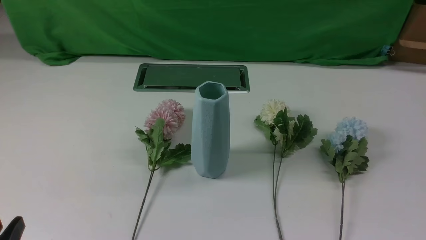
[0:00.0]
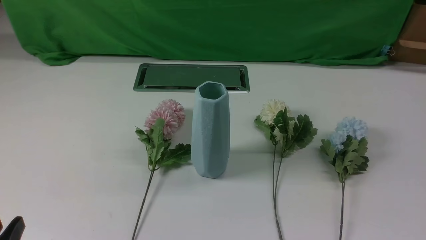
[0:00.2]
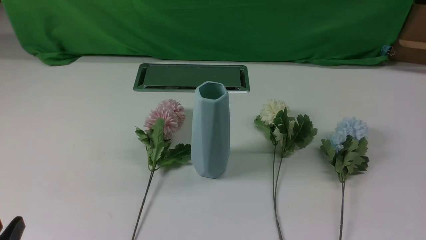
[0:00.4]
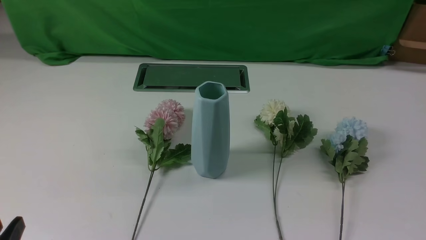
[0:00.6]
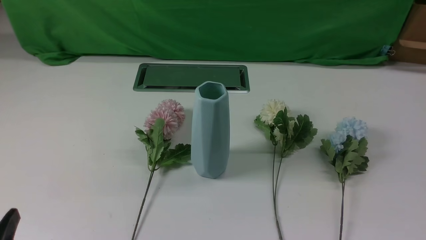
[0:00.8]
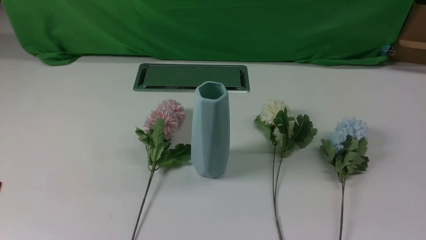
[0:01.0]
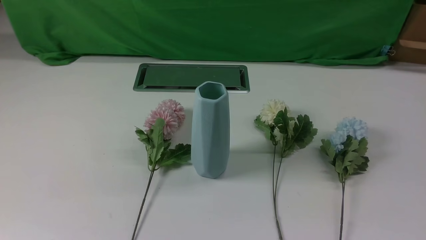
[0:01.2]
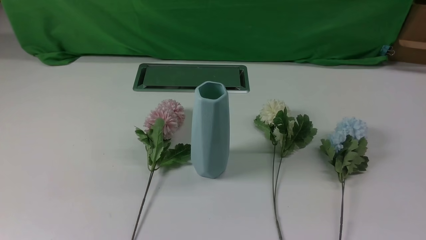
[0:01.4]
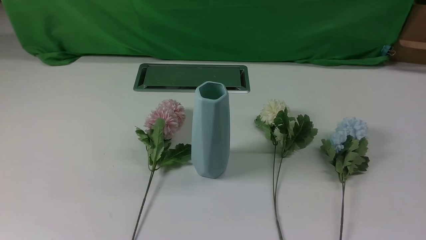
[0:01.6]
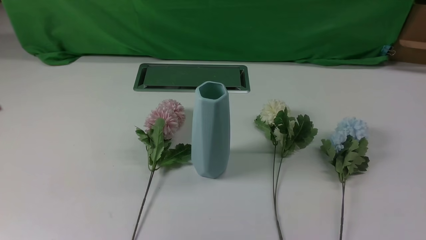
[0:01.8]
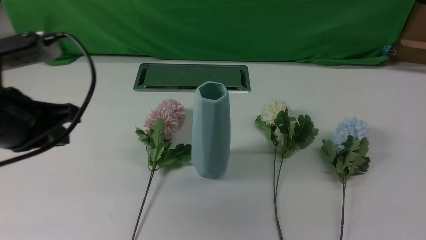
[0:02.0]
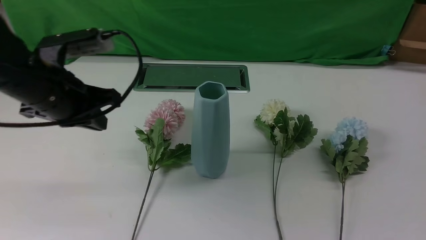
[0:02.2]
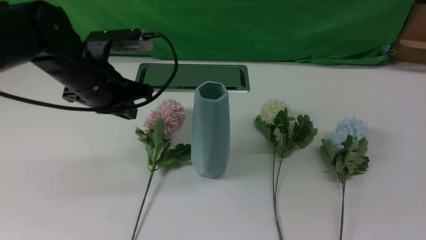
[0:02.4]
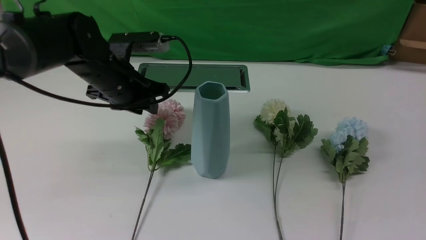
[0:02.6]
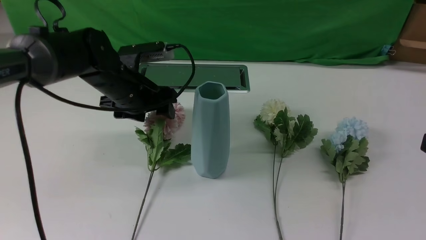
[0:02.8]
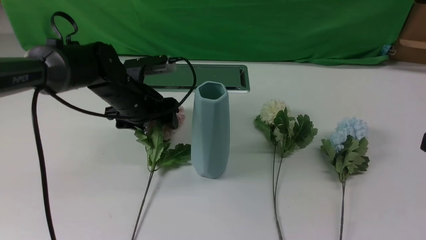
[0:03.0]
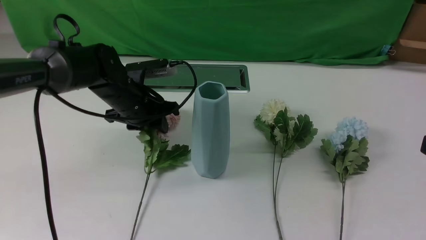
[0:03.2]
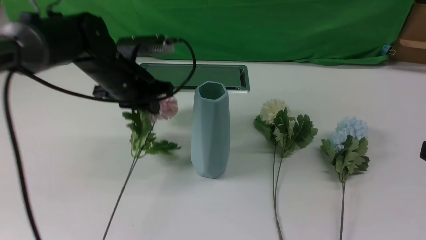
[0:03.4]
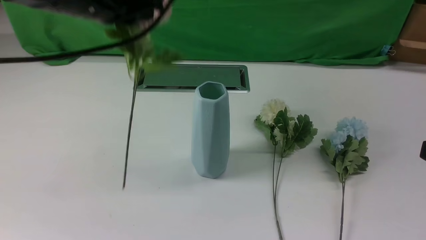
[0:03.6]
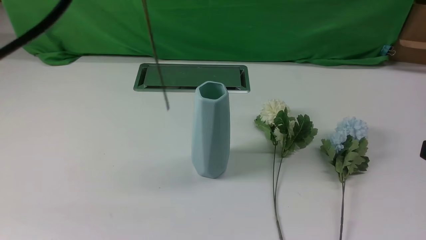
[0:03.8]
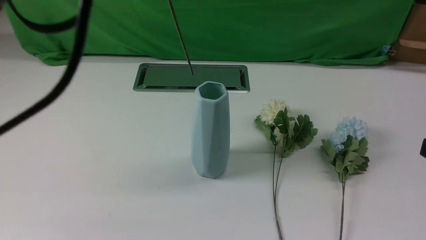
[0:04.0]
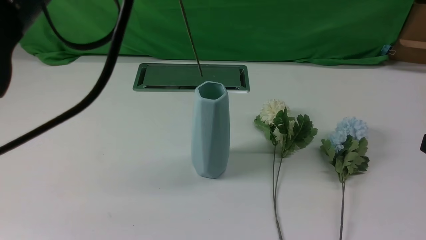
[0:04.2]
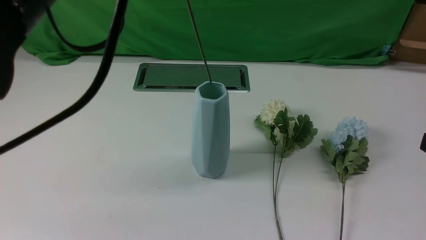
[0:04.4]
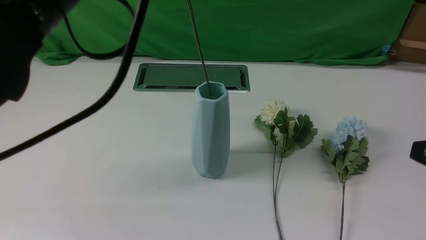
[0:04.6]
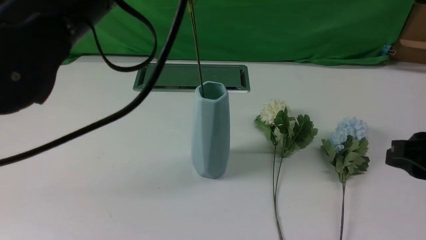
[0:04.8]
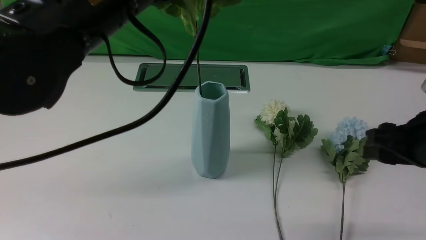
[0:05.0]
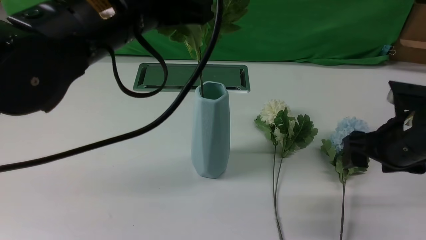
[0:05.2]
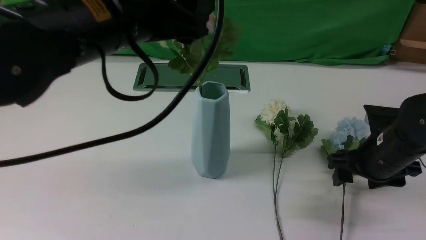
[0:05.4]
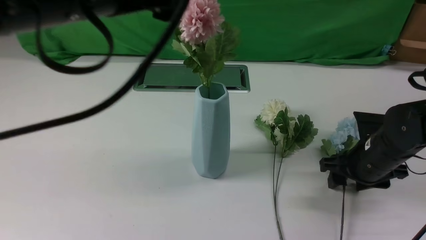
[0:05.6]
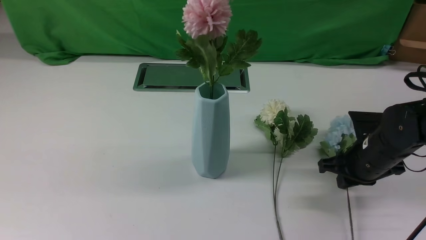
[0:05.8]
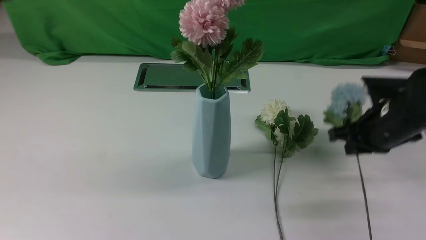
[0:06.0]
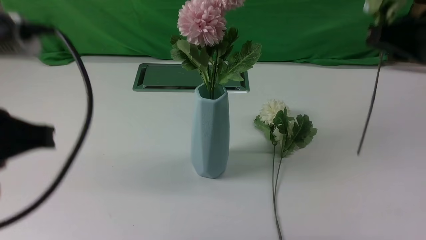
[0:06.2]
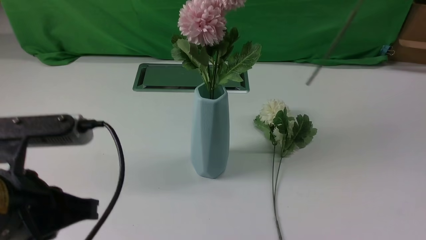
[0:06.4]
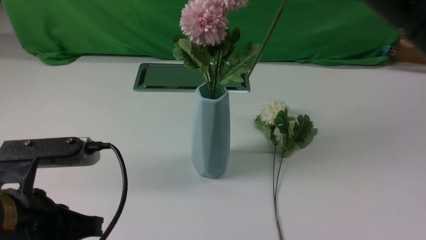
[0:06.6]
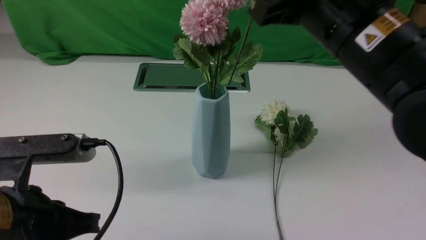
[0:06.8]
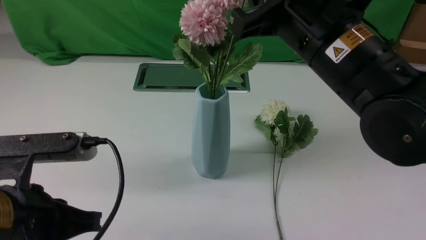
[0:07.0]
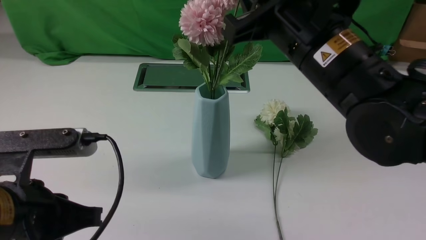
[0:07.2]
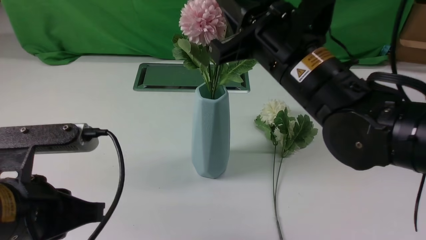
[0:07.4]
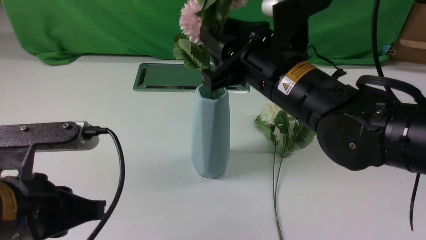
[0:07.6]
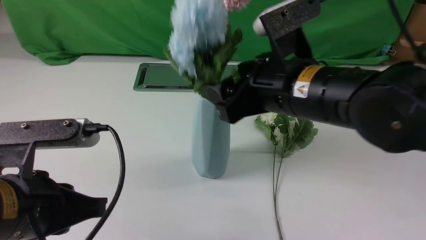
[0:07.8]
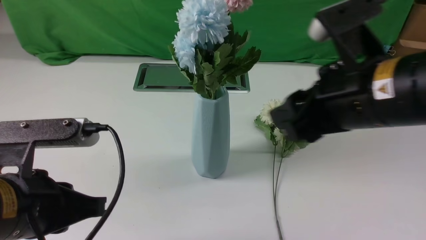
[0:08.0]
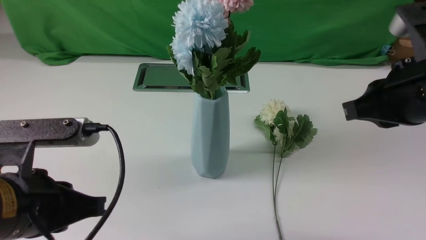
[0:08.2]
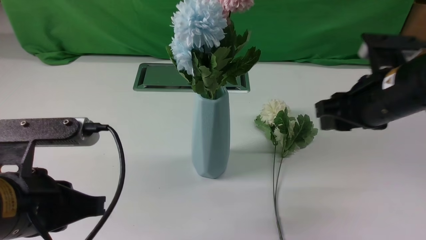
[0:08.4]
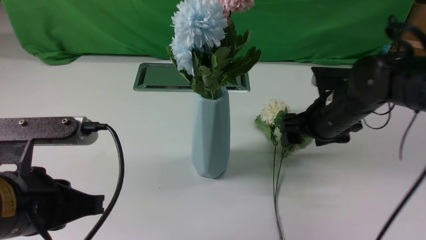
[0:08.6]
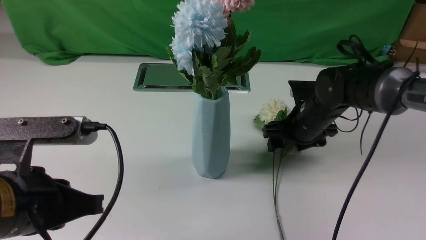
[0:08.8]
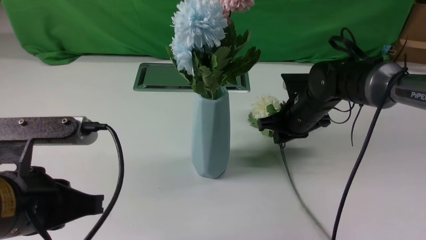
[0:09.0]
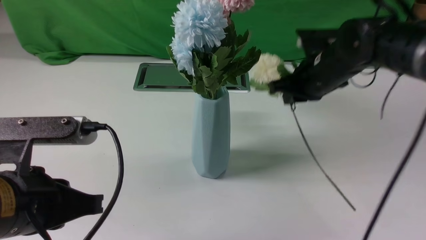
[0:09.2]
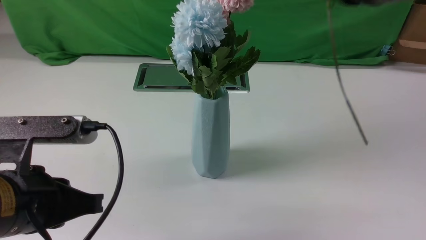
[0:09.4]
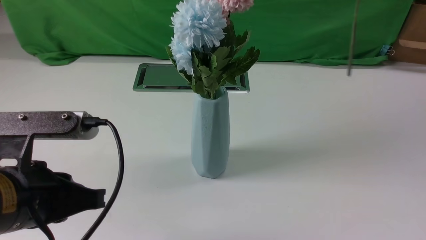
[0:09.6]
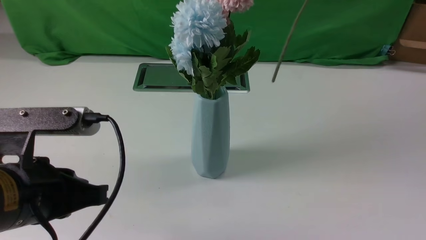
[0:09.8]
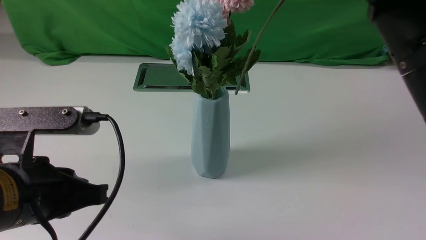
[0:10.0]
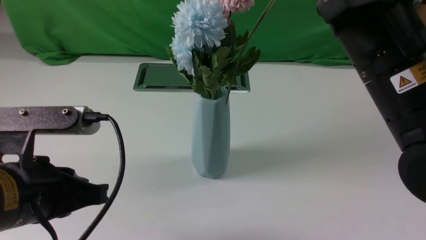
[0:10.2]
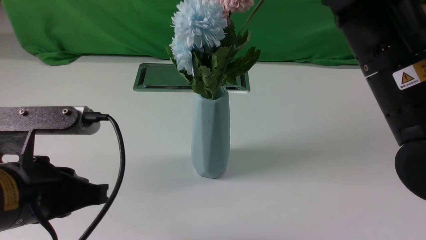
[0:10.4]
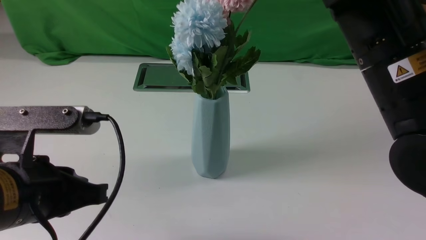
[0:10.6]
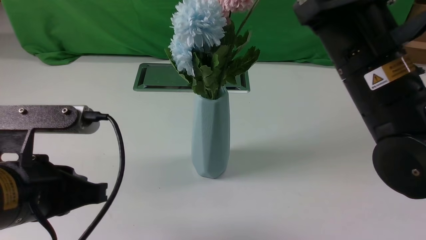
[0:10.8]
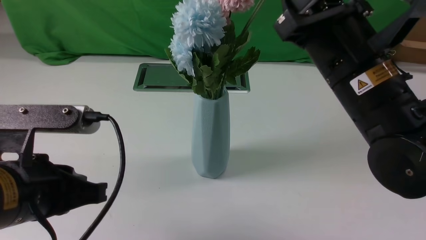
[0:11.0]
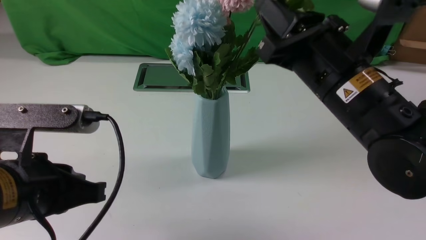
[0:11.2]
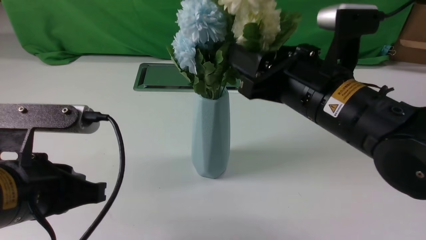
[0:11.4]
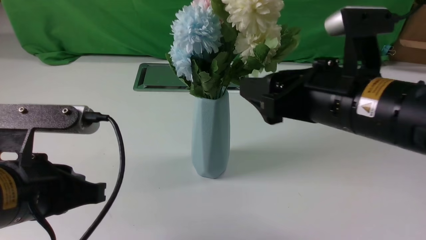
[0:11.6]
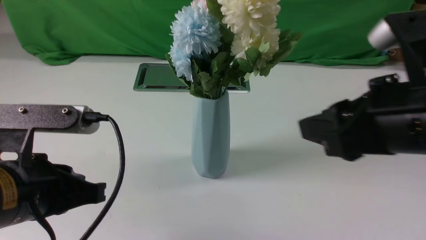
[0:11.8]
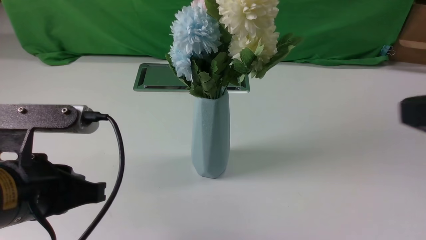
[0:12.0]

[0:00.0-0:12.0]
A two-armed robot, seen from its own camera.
Task of the whole recording: insert the flowers into the vase on the white table.
Step, 0:00.0 to 0:03.2: use the left arm to grab a bunch of fresh flowers.
Step, 0:03.4 to 0:05.4: use the left arm to insert the flowers into the vase.
Step, 0:05.6 to 0:05.8: use the right arm to grab a bunch of fresh flowers.
Step, 0:06.0 to 0:07.8: use the right arm to insert the flowers into the vase.
Step, 0:08.0 to 0:09.0: use the right arm to grab a bunch of fresh flowers.
Step, 0:09.2 to 0:11.4: use the right arm to insert the flowers into the vase.
0:01.6 to 0:03.0: The right gripper shifts some 15 cm upward and forward; the left gripper goes some 35 cm forward and downward, and opens.
0:03.0 to 0:04.4: The left gripper shifts some 30 cm upward and backward, and closes its fingers.
0:04.4 to 0:06.0: The right gripper moves forward, some 15 cm, and opens, then closes once more. Meanwhile the left gripper shifts some 10 cm backward and to the left, and opens, then closes again.
0:06.0 to 0:07.6: The left gripper travels downward by approximately 15 cm. The right gripper goes approximately 15 cm to the left, moves roughly 15 cm upward and comes back, and opens its fingers.
0:07.6 to 0:09.0: The right gripper is displaced downward, forward and to the right by about 20 cm, and opens, then closes again.
0:09.0 to 0:10.4: The right gripper goes approximately 25 cm upward and backward, and closes its fingers.
0:10.4 to 0:12.0: The right gripper heads backward and to the right, covering roughly 15 cm, and opens and closes again.

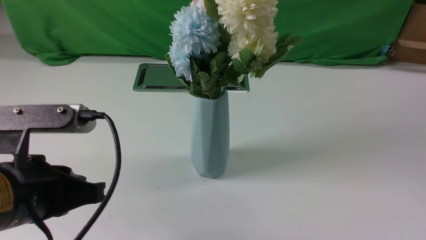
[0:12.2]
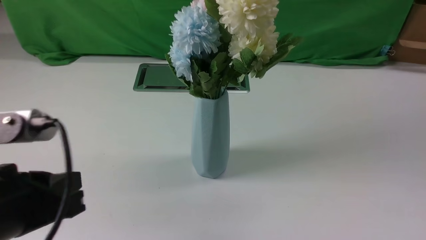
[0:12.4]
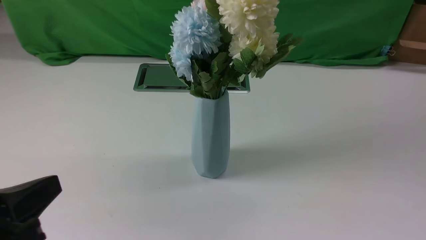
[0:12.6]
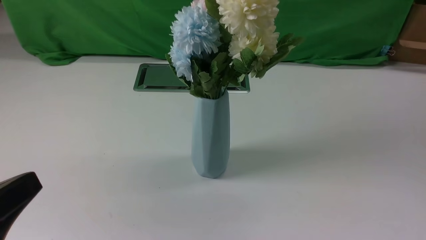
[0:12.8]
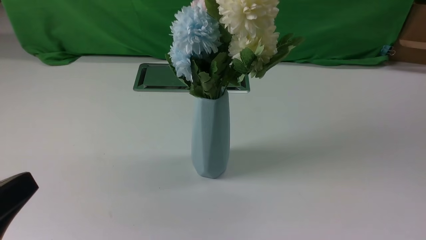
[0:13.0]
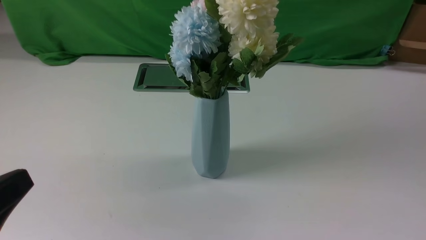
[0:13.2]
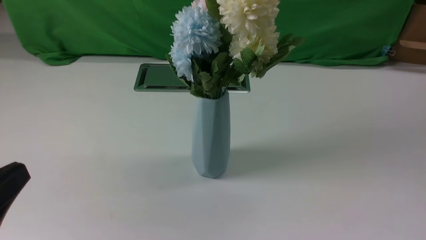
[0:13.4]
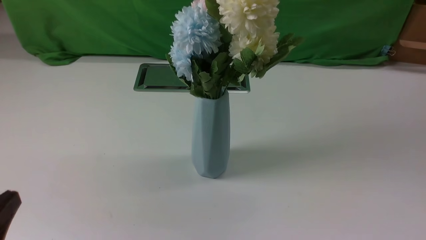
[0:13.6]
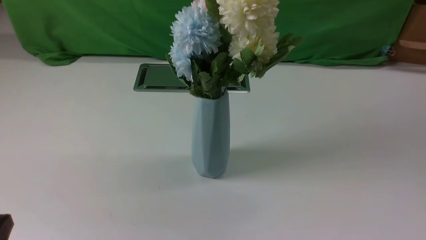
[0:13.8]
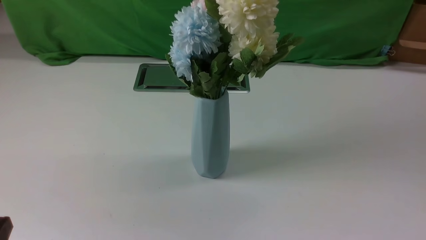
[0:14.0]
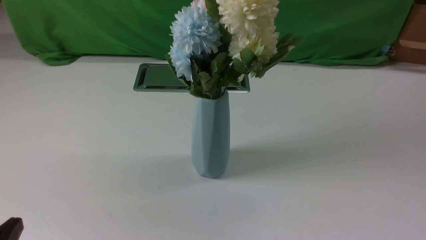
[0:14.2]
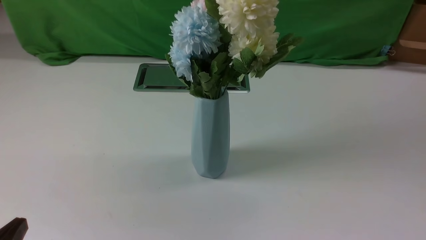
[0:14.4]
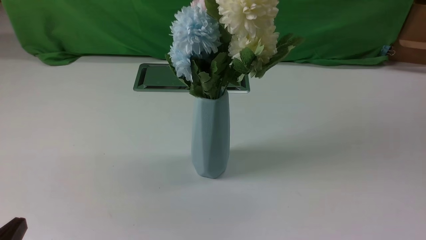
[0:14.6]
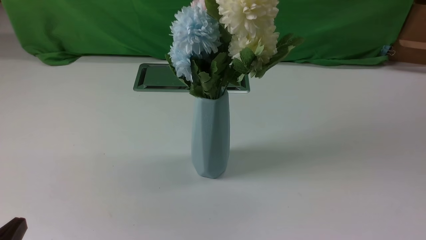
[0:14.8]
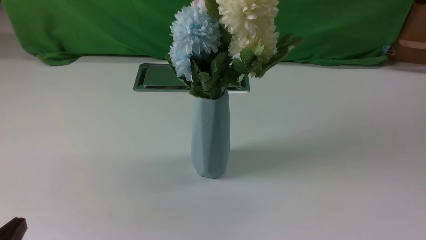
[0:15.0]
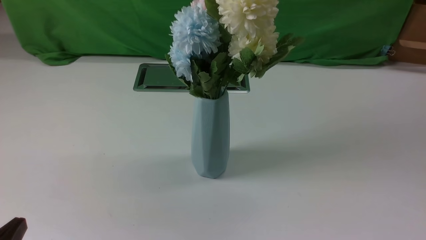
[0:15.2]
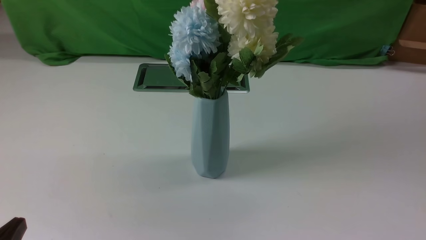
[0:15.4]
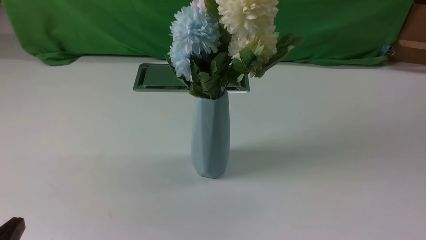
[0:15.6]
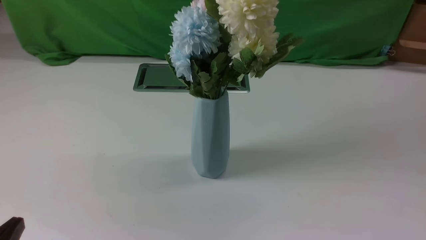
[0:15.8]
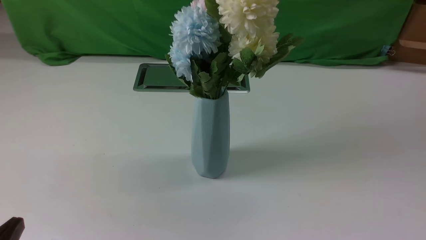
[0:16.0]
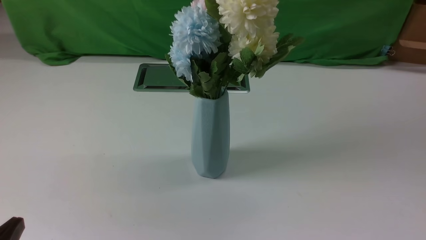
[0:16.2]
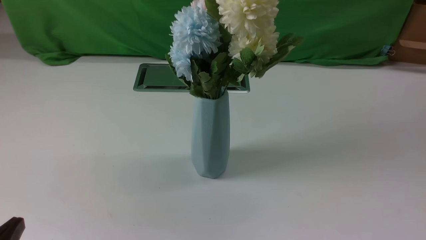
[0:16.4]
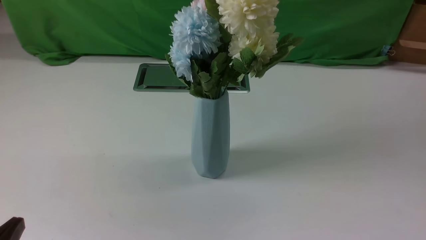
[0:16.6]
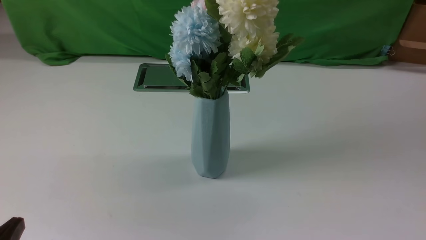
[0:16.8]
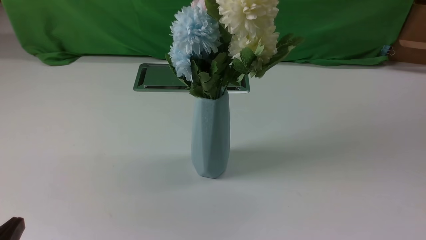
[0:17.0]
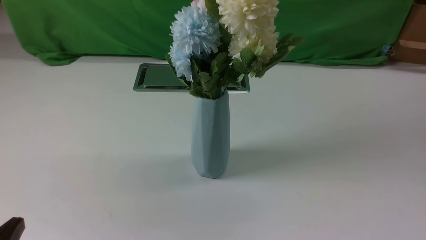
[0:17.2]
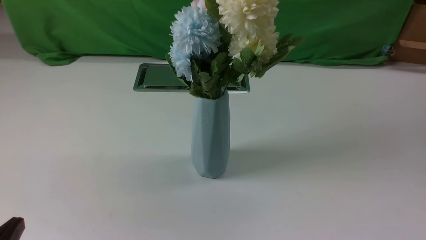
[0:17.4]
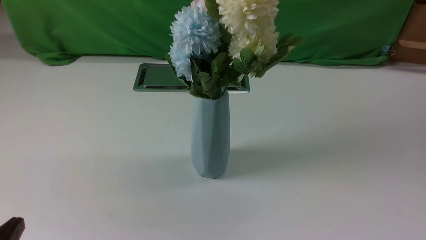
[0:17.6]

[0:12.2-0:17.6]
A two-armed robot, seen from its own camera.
Task of the whole recording: insert the flowers into the vase on the white table.
0:12.2 to 0:13.6: The right gripper goes some 5 cm downward. Meanwhile the left gripper heads backward, to the left and downward, covering about 10 cm.
0:13.6 to 0:15.0: The grippers move only a little.
0:16.2 to 0:17.6: Both grippers stay about where they are.
